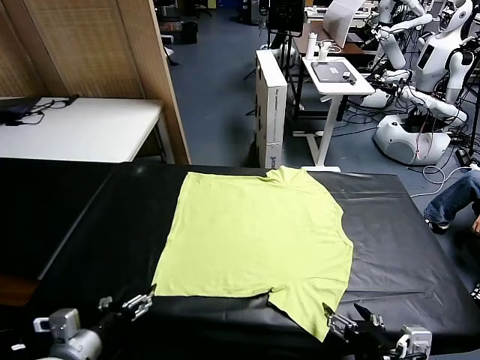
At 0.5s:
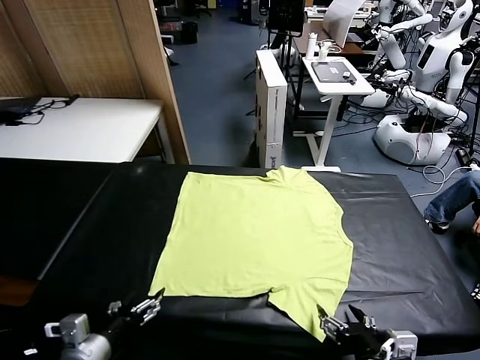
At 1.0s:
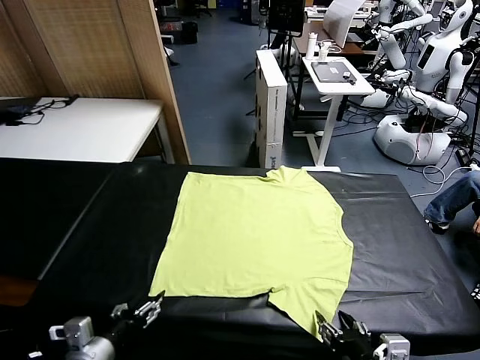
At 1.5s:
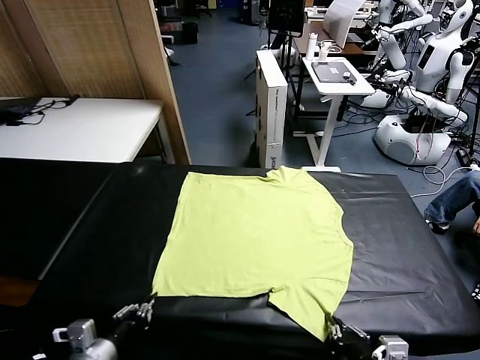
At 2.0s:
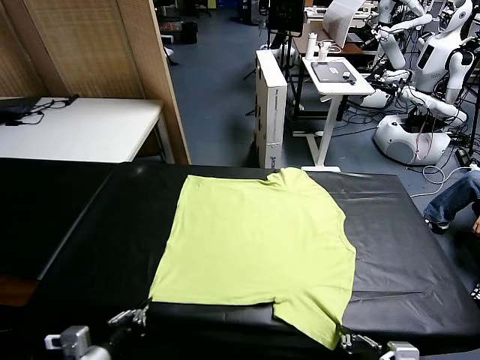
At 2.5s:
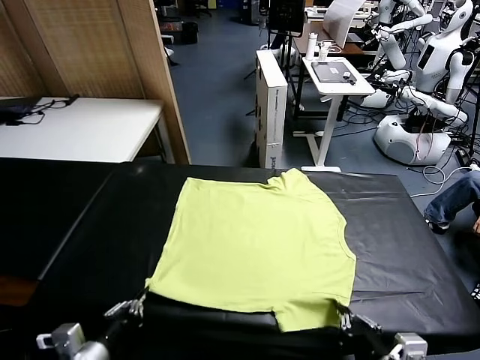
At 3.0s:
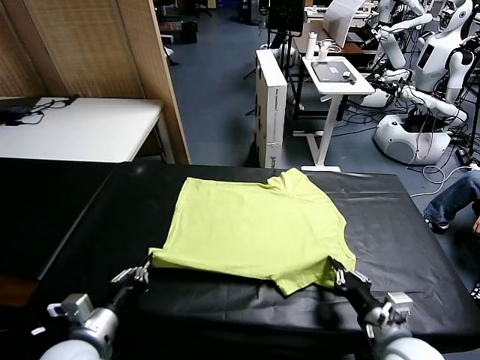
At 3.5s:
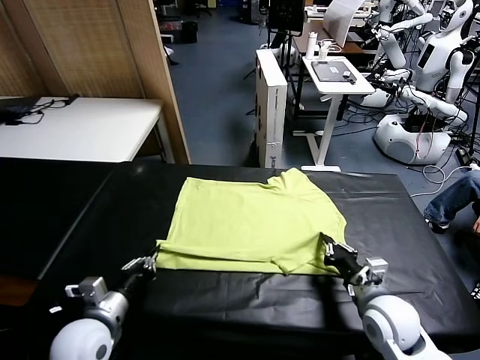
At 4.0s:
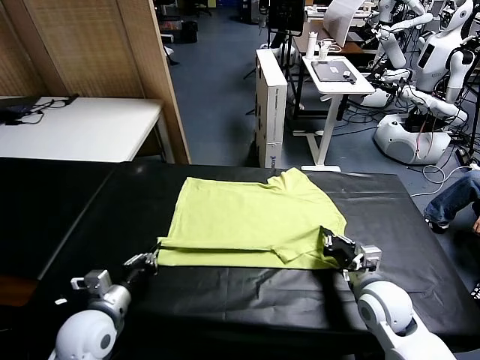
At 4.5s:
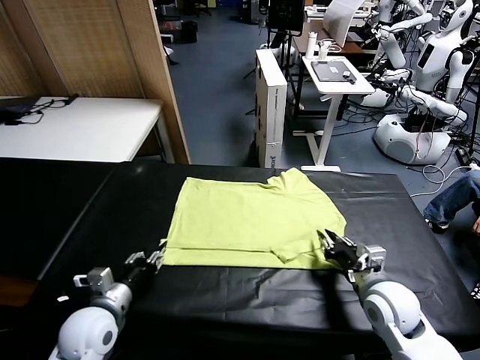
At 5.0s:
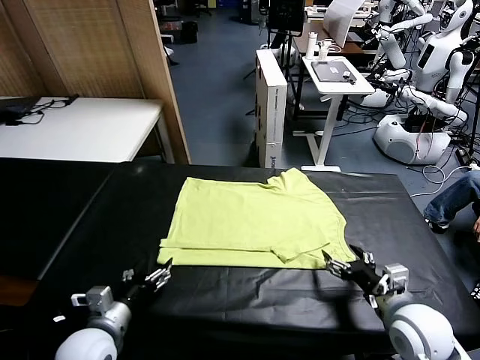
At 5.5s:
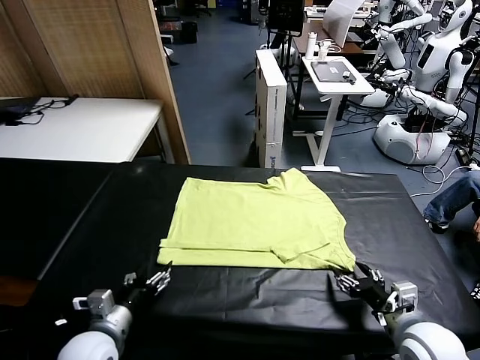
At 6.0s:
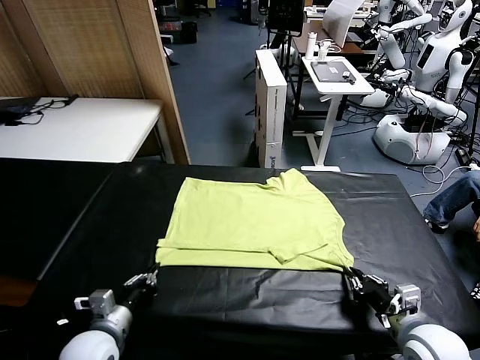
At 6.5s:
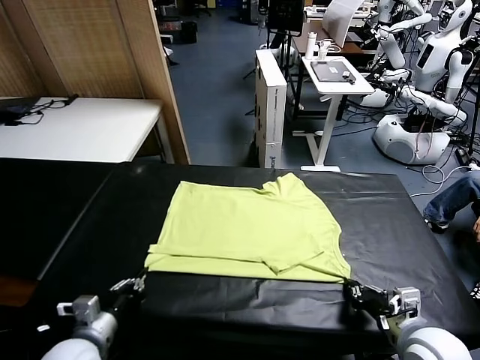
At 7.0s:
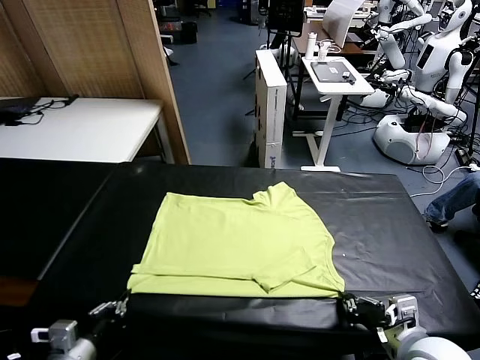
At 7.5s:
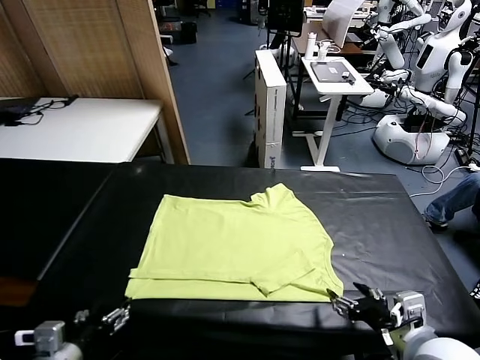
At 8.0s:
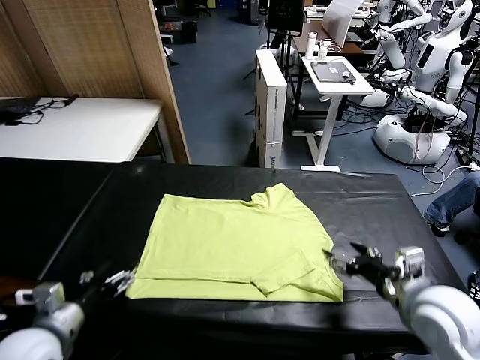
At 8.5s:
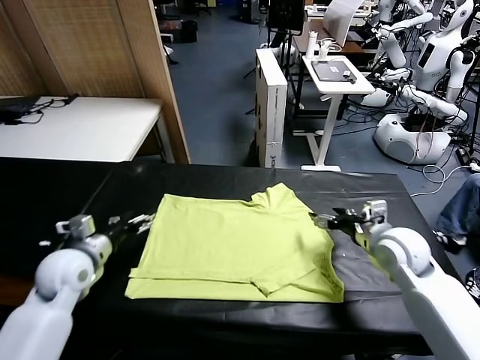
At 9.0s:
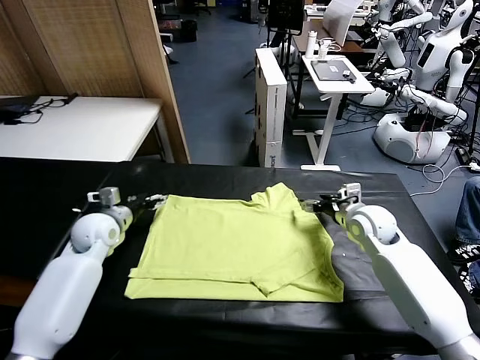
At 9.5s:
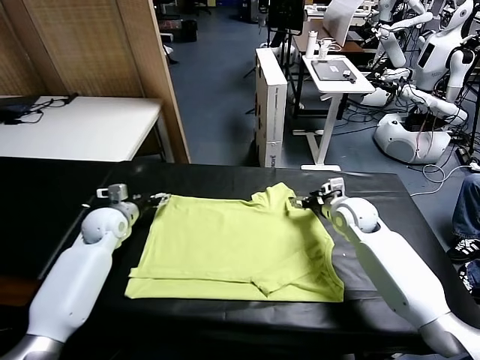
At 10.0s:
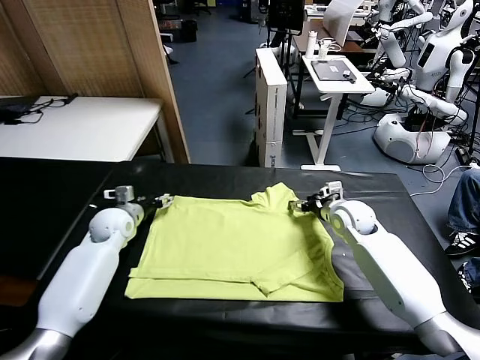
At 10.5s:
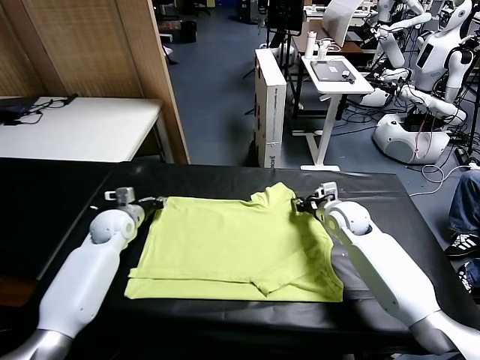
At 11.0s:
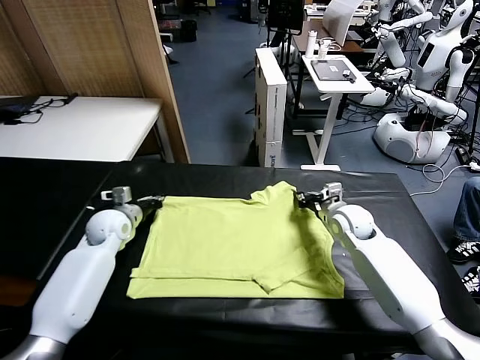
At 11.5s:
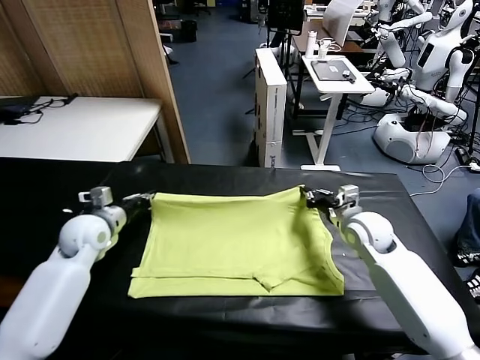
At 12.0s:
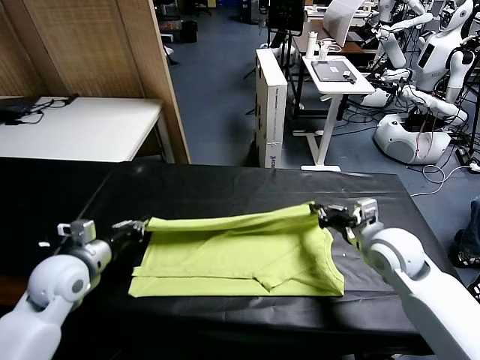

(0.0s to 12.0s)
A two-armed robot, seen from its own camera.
Task of the whole recording: fold and organize the clothes.
Step, 0.0s - 1.5s: use both grippers simultaneously to clamp the lower edge of the clothing fabric.
Step, 2.0s - 4.5s: use both grippers to drag the lower edge of the fabric forward and fold it over the upper edge.
Step, 5.0s - 7.0s: Drag the clothes downward with both gripper.
Step, 8.0s - 10.5s: use both grippers simultaneously to clamp the upper edge of the clothing fabric.
2.0s - 4.0s: The two grippers go about 15 cm forward.
4.0s - 6.0s: The right gripper travels backward by roughly 10 cm, and opens, then closes once more, while the left gripper opens, then closes once more.
6.0s - 8.0s: The right gripper shifts roughly 20 cm forward, and opens. The left gripper is displaced forward, upward and to the left by about 15 cm, and opens.
8.0s - 10.0s: The right gripper travels forward, downward and to the left by roughly 15 cm, and closes its fingers; the left gripper heads forward, covering about 20 cm, and closes up.
10.0s - 12.0s: The two grippers go approximately 20 cm backward.

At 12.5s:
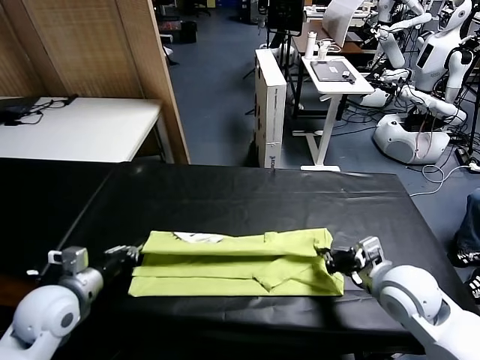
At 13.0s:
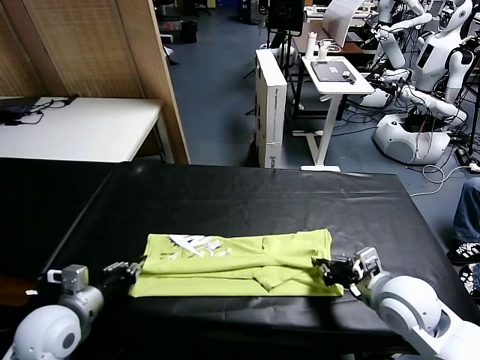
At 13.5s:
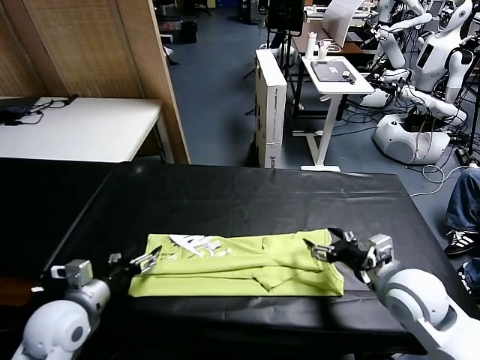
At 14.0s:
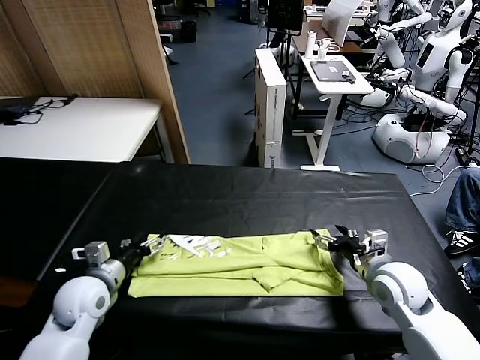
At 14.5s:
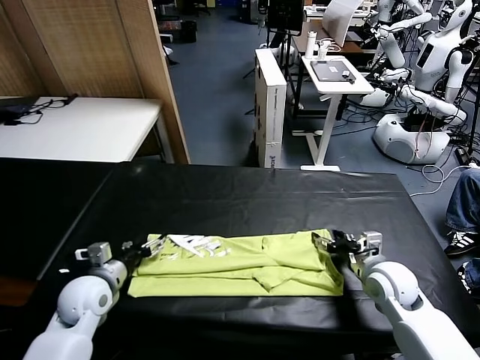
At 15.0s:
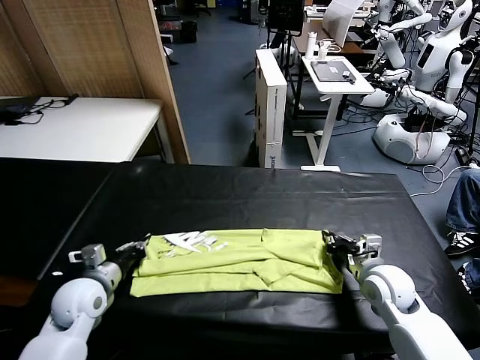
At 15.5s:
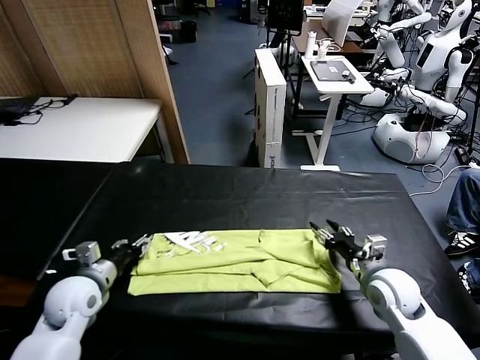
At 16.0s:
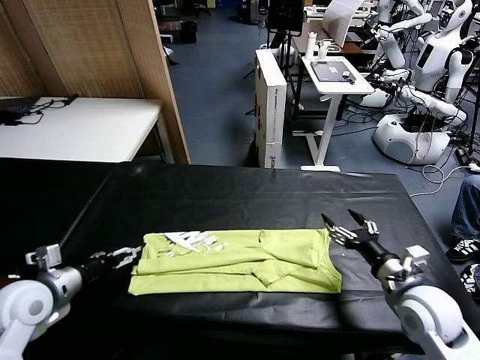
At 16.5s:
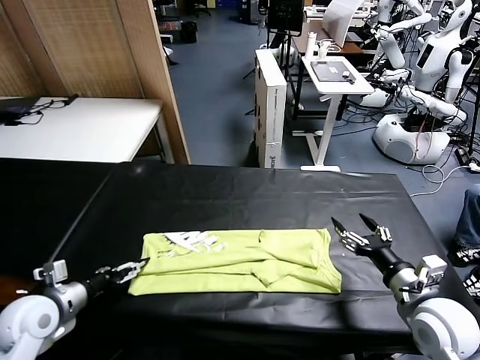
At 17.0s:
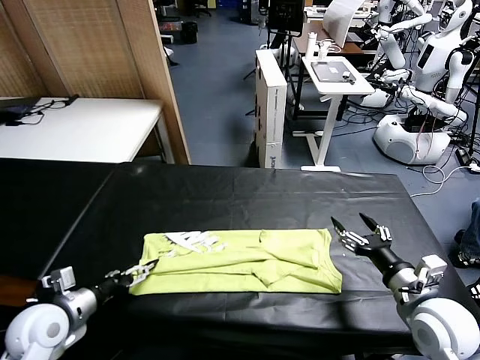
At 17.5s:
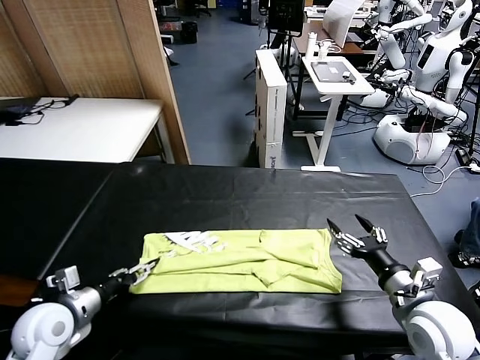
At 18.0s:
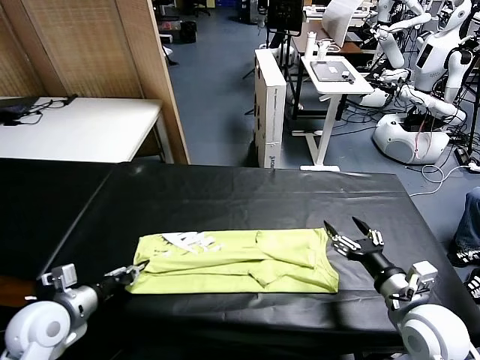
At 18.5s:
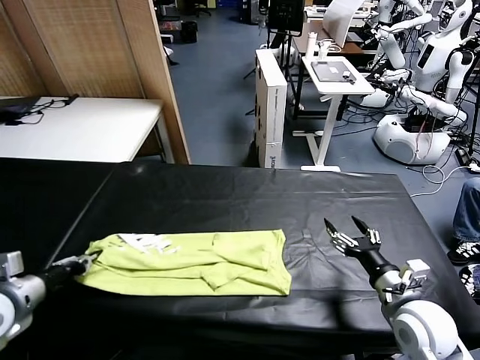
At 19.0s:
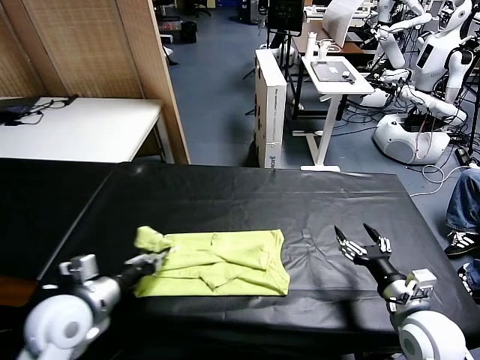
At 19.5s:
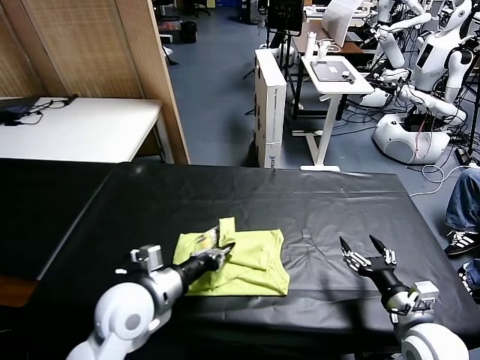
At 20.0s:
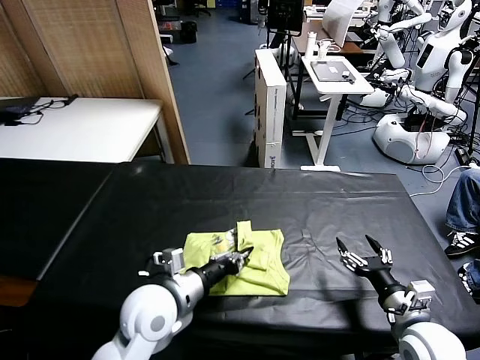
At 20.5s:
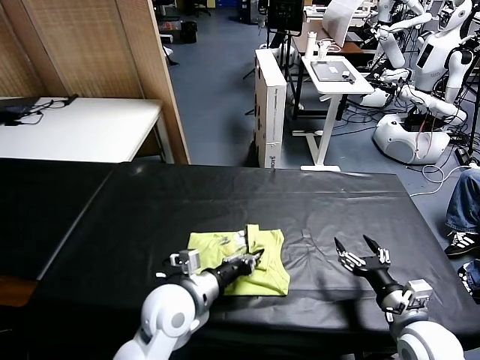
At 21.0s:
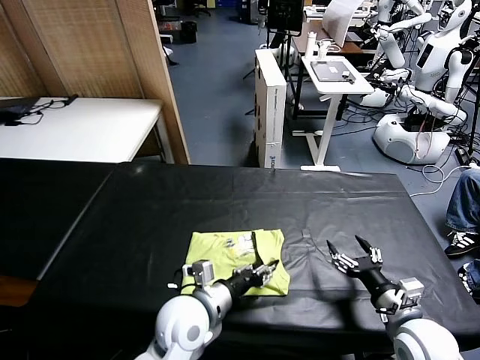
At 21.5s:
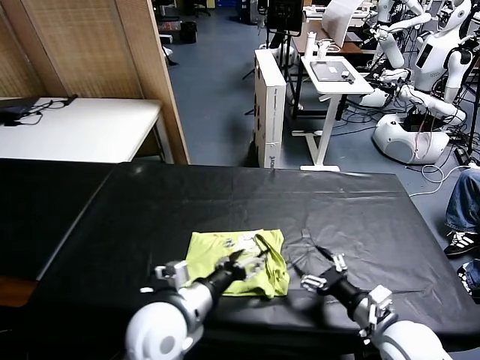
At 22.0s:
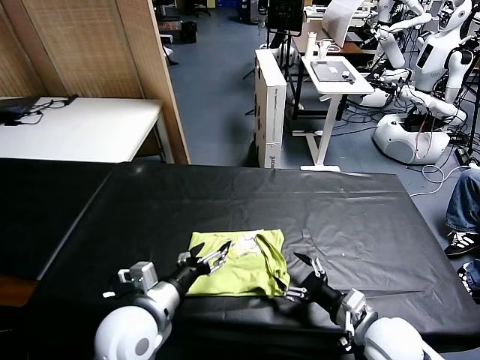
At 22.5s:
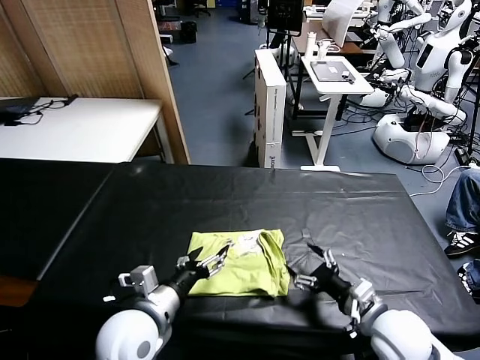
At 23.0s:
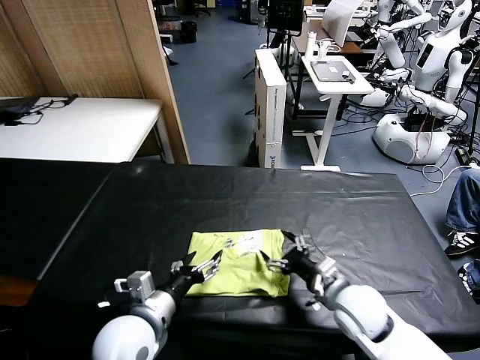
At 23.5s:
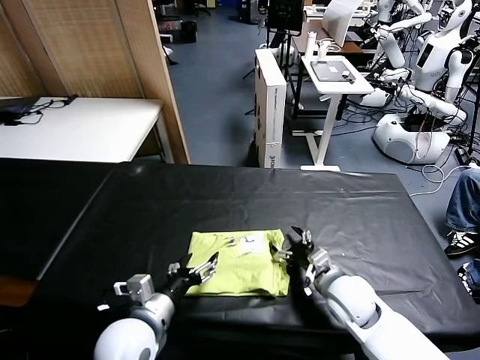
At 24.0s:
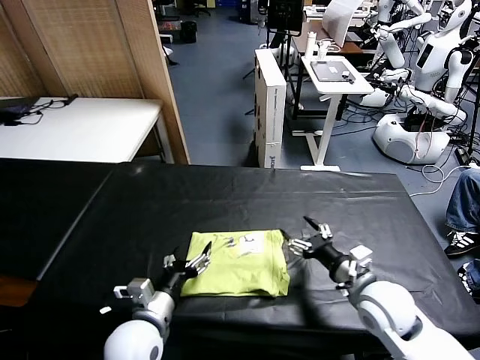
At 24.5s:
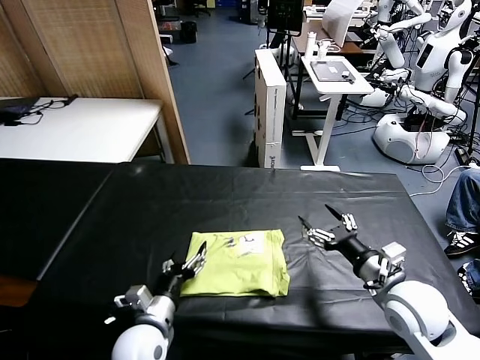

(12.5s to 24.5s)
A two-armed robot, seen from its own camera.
Task of the whole recording: fold and organize the clothes.
Step, 13.5s - 18.0s: use the left gripper to clamp the left edge of the fabric.
Step, 18.5s - 21.5s: use the left gripper to drag the left edge of the fabric to the left and folds it over the right edge.
12.5s - 14.5s: The left gripper goes some 5 cm forward, and opens, then closes again, while the right gripper heads downward and forward, covering roughly 10 cm, and opens, then closes once more.
14.5s - 16.5s: The right gripper is displaced backward and upward by approximately 10 cm, and opens, while the left gripper heads backward, covering some 5 cm, and opens up.
16.5s - 18.5s: The left gripper travels to the right by some 10 cm, and closes.
18.5s - 20.5s: The left gripper goes some 20 cm to the right, and opens up.
20.5s - 22.5s: The left gripper heads to the left, covering about 10 cm. Meanwhile the right gripper heads to the left and forward, covering roughly 15 cm.
22.5s - 24.5s: The left gripper shifts about 10 cm downward. The right gripper is displaced to the right, upward and backward by approximately 15 cm.

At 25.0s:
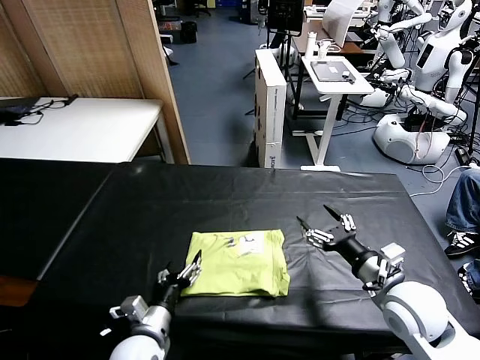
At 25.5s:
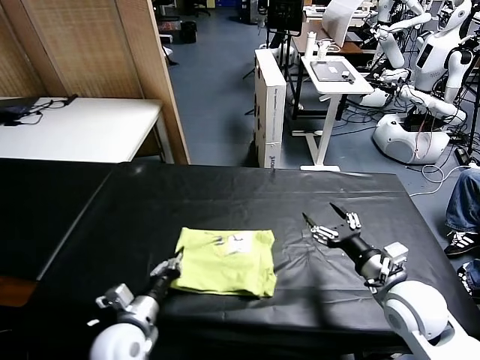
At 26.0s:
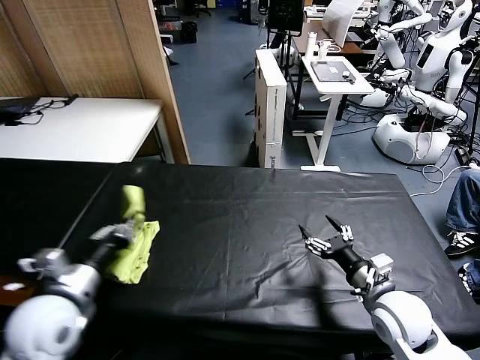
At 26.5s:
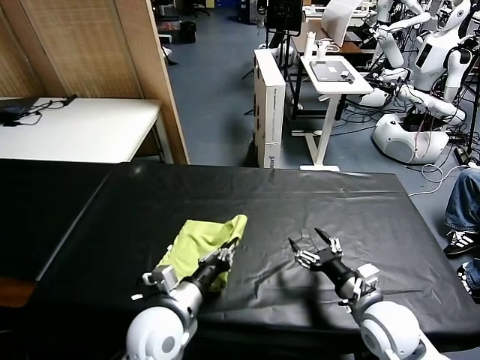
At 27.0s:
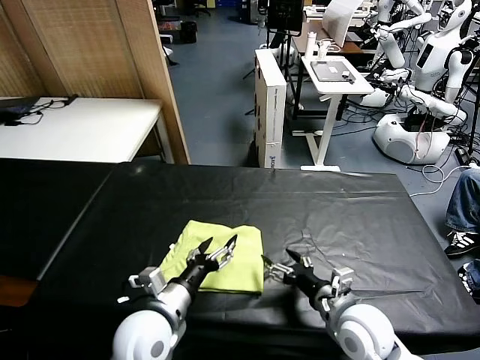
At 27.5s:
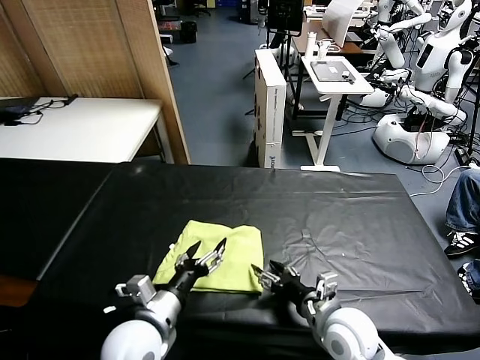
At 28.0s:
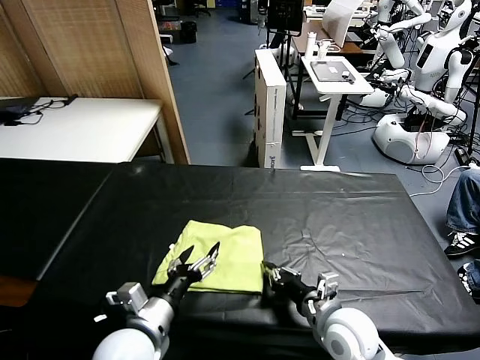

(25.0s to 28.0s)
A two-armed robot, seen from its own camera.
Task of the whole recording: fold and organize the clothes.
25.0s - 26.5s: The right gripper travels downward by approximately 5 cm; the left gripper is displaced upward by approximately 10 cm, and goes to the left and returns, some 20 cm each way.
26.5s - 28.0s: The left gripper opens; the right gripper goes approximately 10 cm to the left, and closes.
